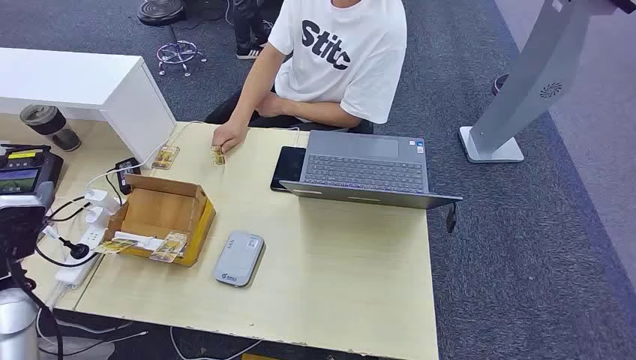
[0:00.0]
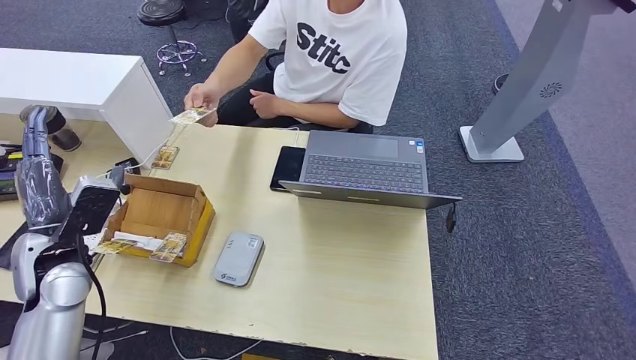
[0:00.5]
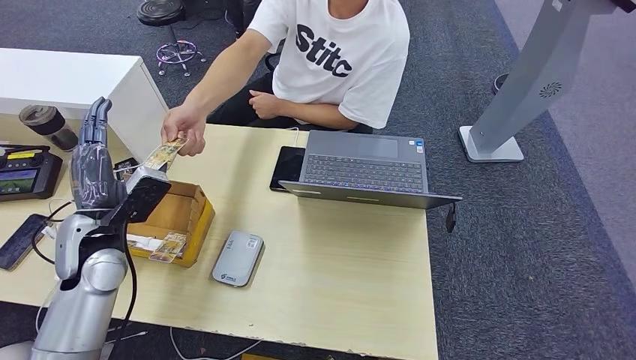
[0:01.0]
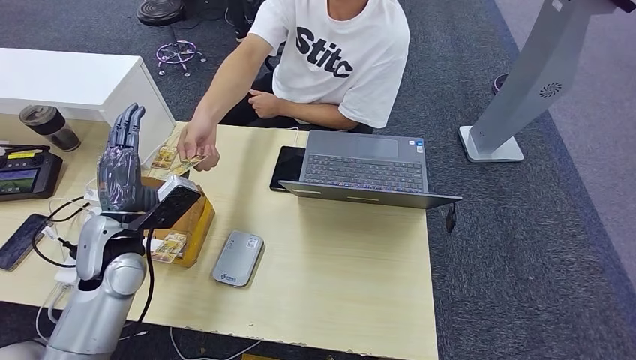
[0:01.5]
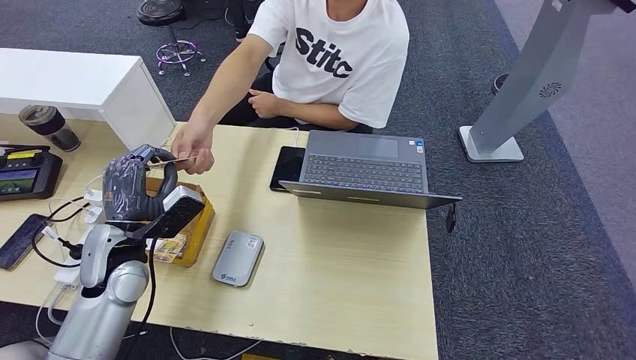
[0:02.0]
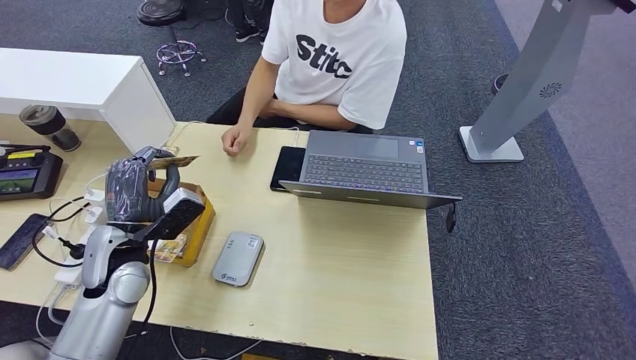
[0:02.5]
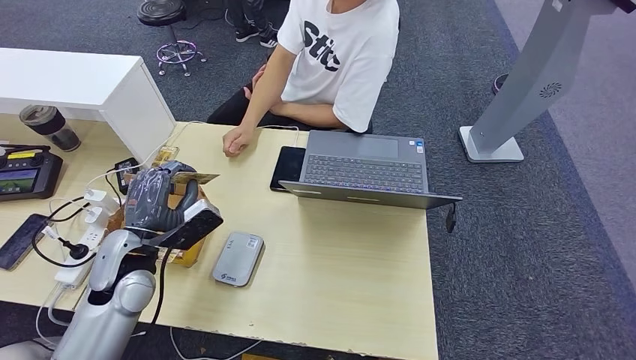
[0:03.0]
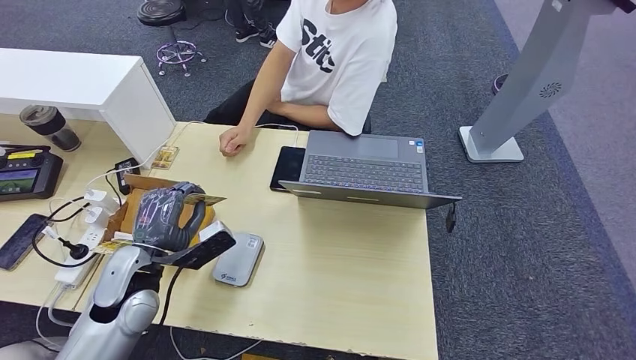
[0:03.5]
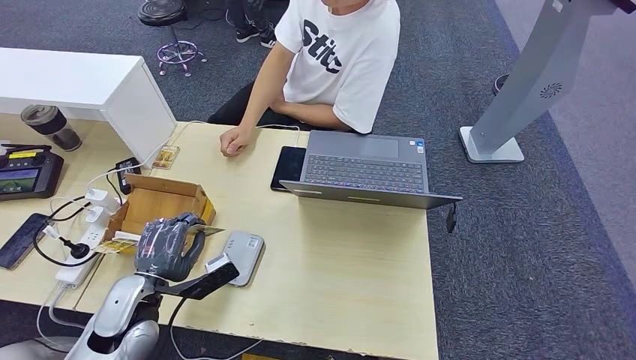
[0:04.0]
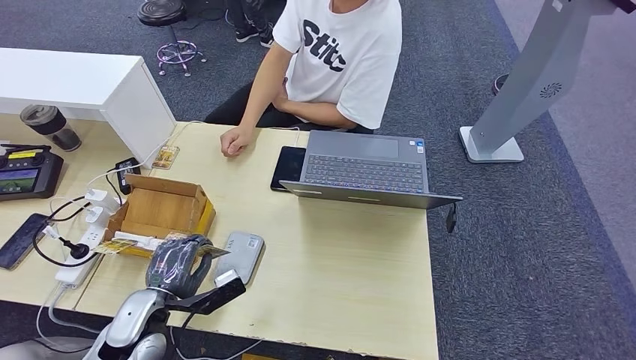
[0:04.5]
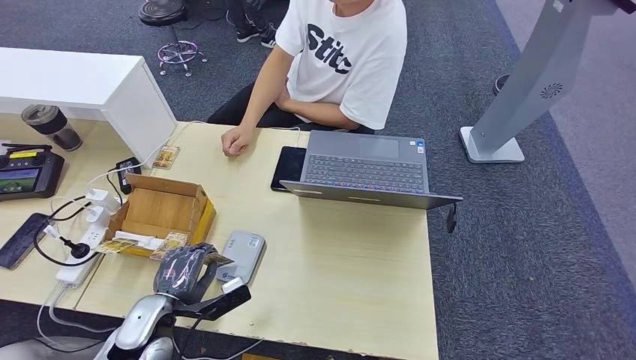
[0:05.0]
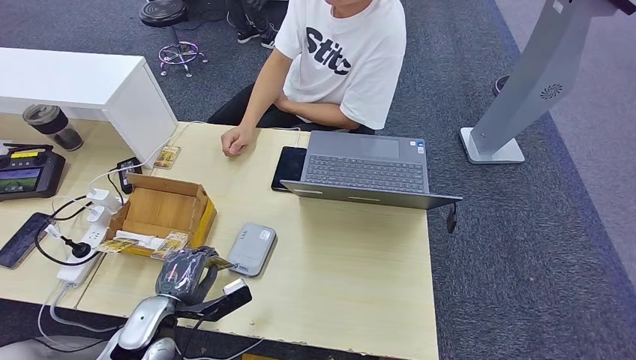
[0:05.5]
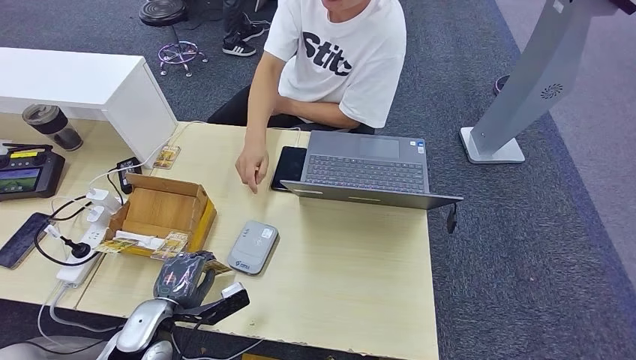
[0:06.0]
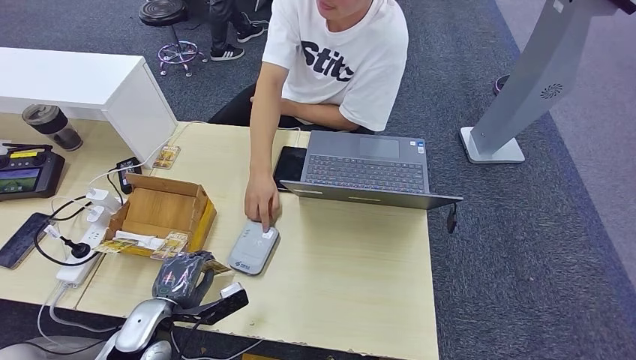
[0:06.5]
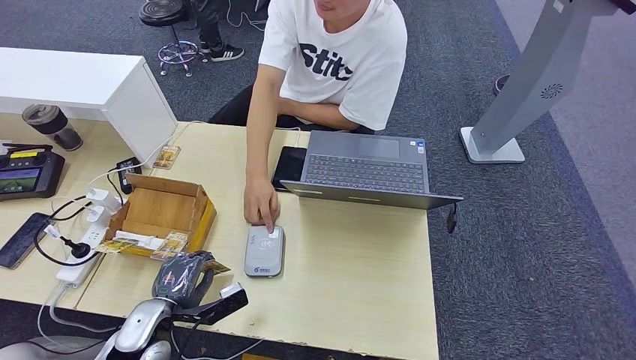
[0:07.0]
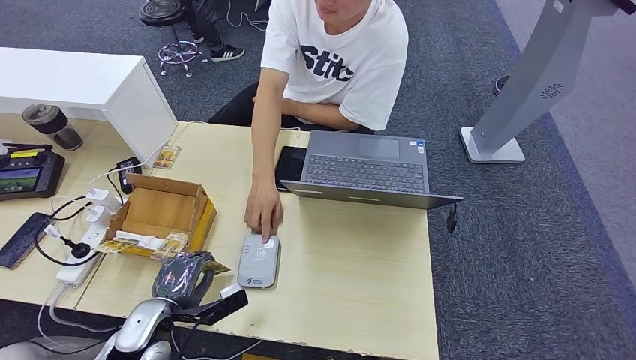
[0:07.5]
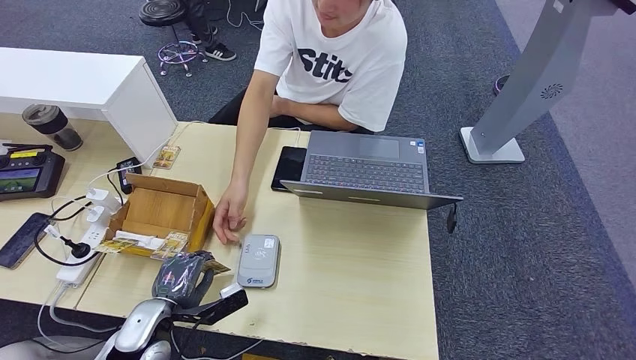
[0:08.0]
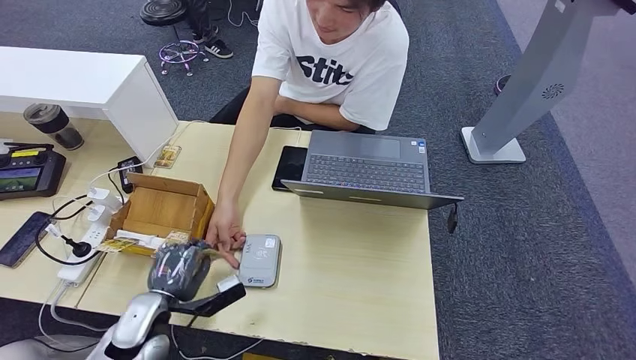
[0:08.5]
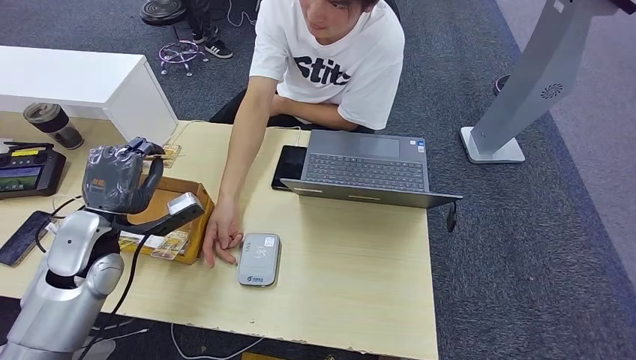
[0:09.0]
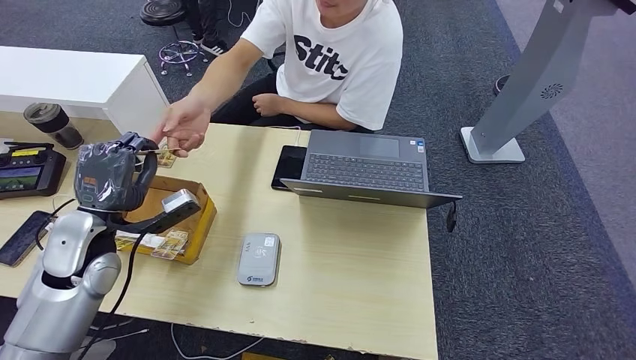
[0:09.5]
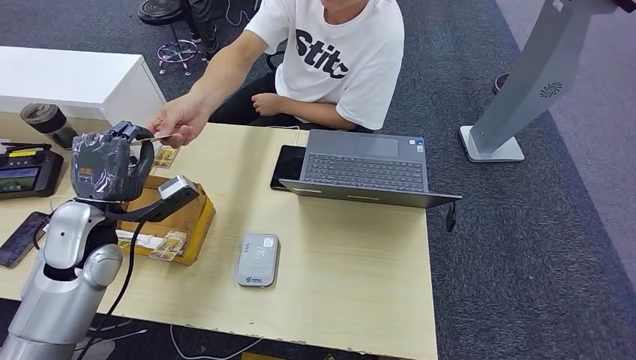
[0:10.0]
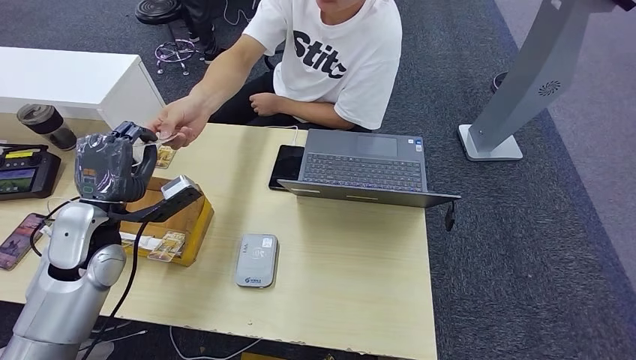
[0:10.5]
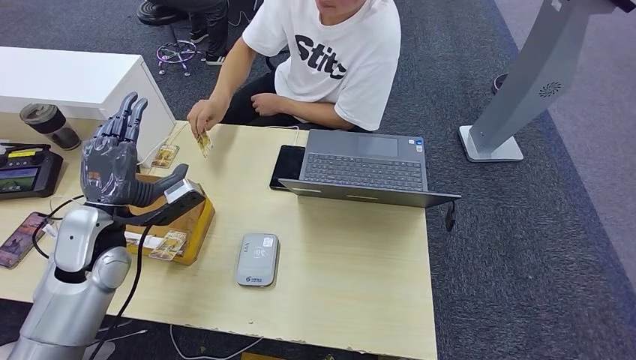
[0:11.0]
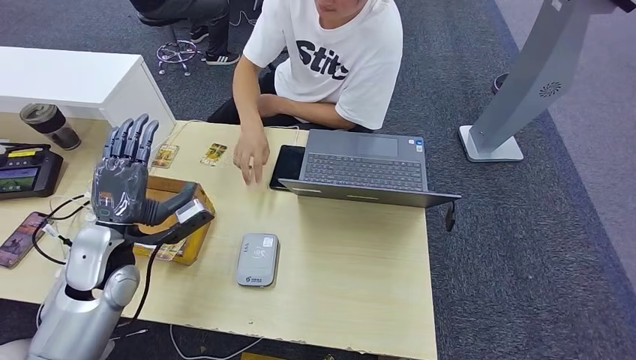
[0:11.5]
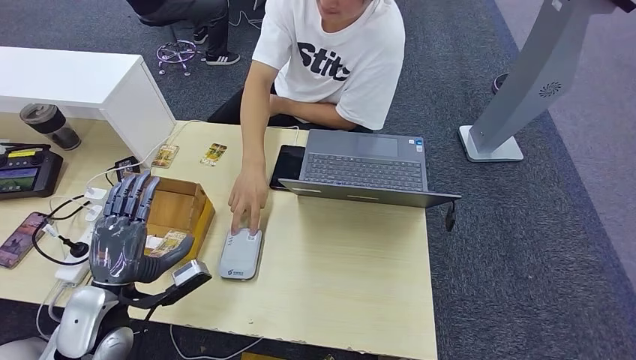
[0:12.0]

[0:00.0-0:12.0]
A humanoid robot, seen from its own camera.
Step, 0:00.0 to 0:02.5: Take the ID card from the person's hand.
Step, 0:03.5 to 0:05.0: Place the ID card on the card reader.
Step, 0:05.5 to 0:11.0: Hand the ID card to the person.
0:02.0 to 0:04.0: The left hand goes approximately 10 cm backward and downward.
0:04.0 to 0:06.0: The left hand goes some 5 cm downward.
0:06.0 to 0:08.0: Neither hand changes place.
0:10.0 to 0:12.0: The left hand is displaced backward and downward by approximately 15 cm.

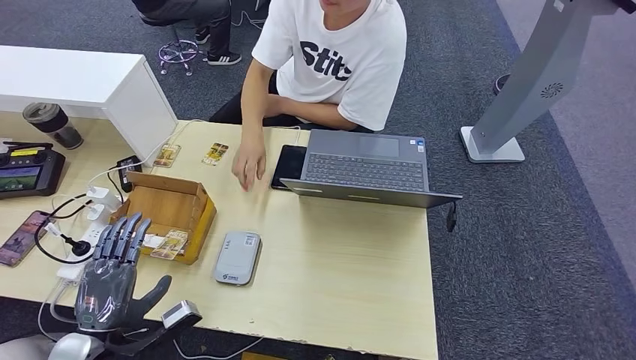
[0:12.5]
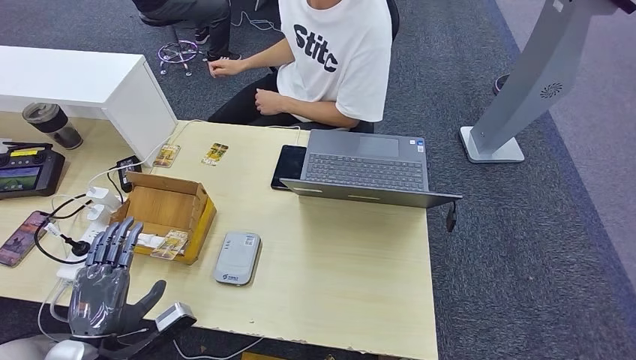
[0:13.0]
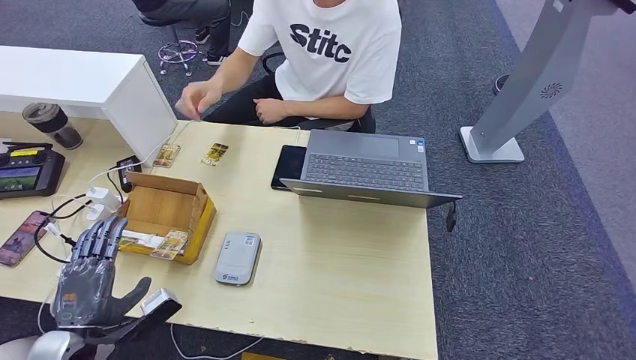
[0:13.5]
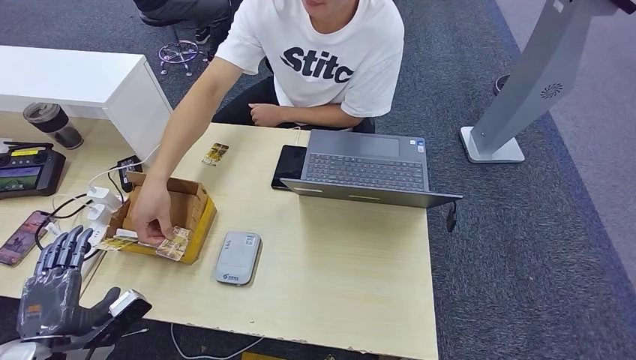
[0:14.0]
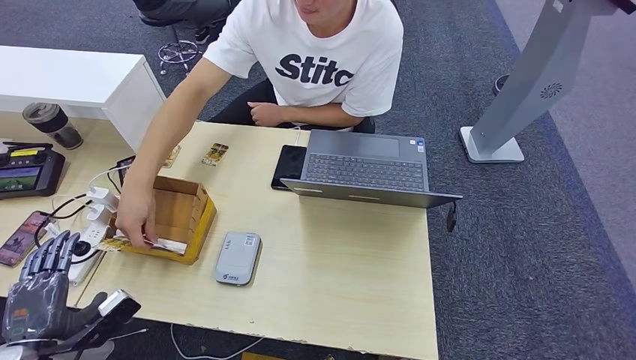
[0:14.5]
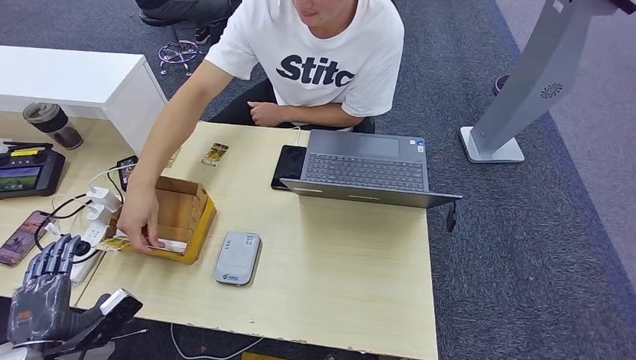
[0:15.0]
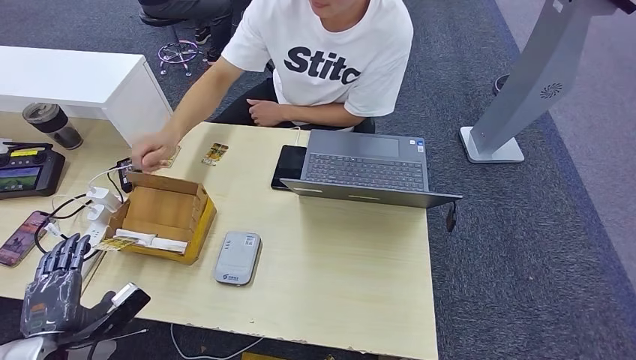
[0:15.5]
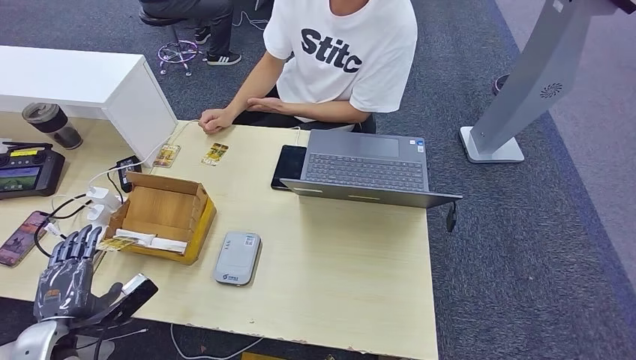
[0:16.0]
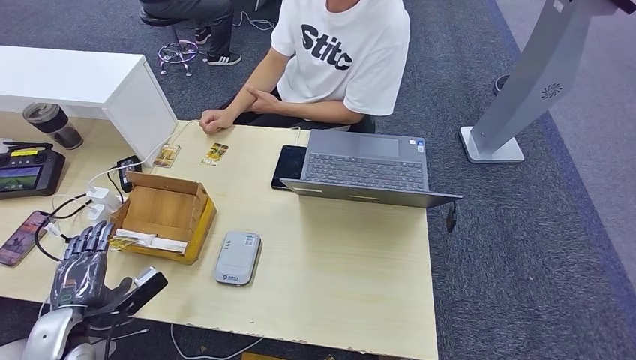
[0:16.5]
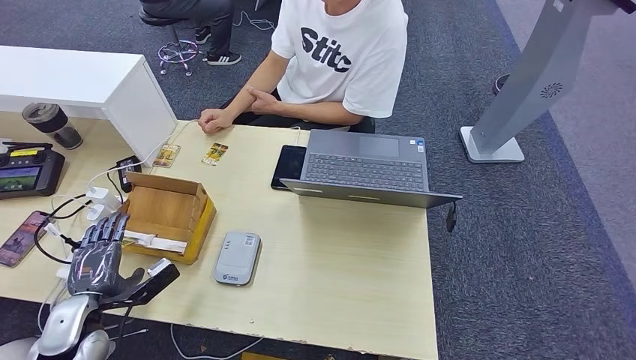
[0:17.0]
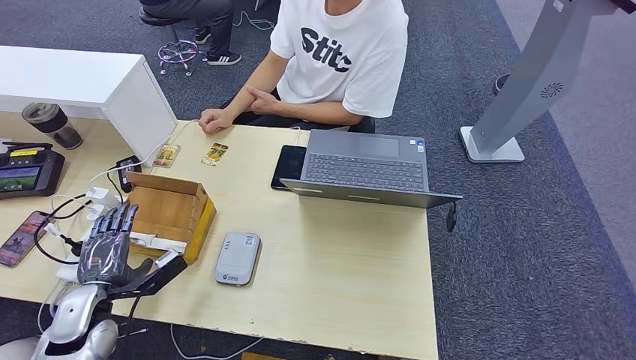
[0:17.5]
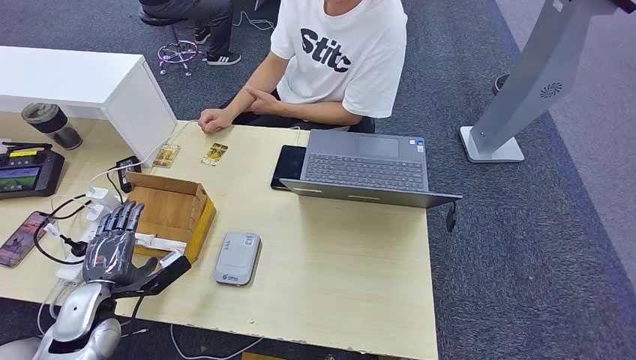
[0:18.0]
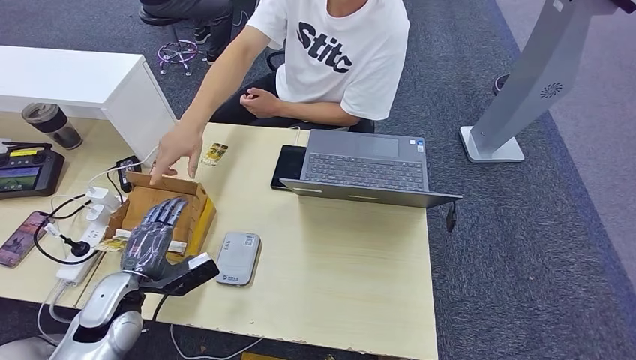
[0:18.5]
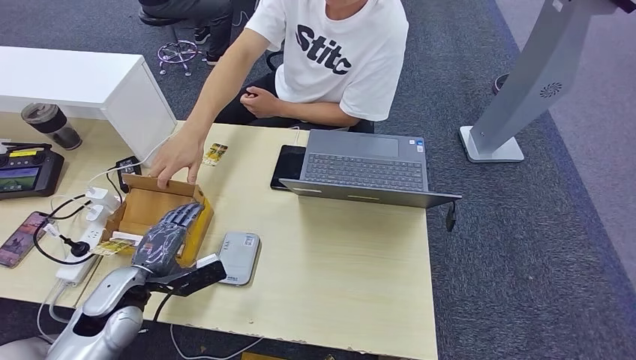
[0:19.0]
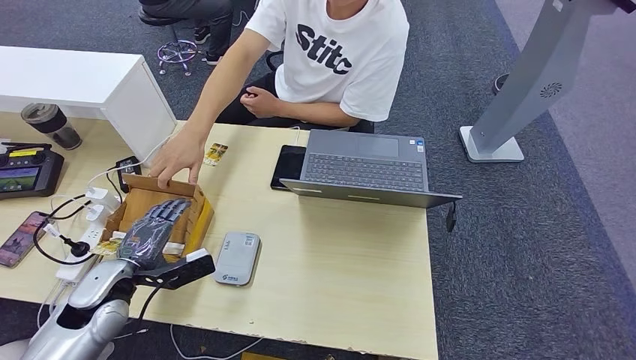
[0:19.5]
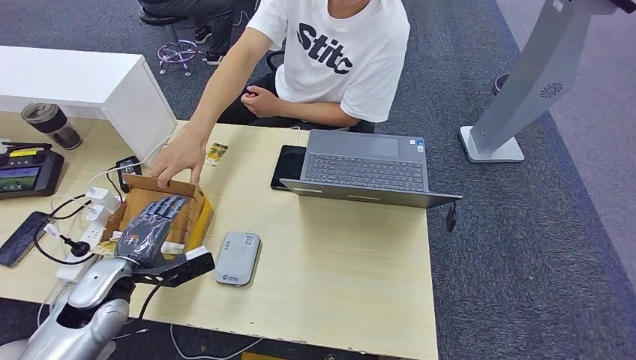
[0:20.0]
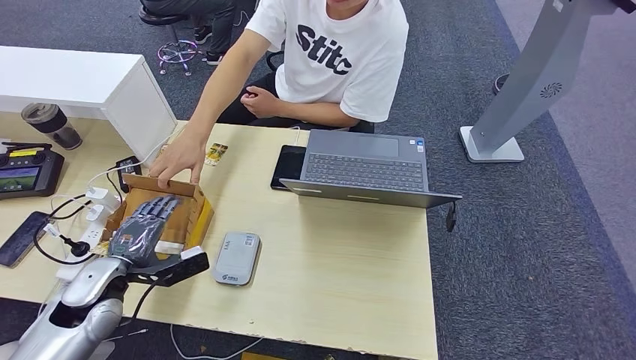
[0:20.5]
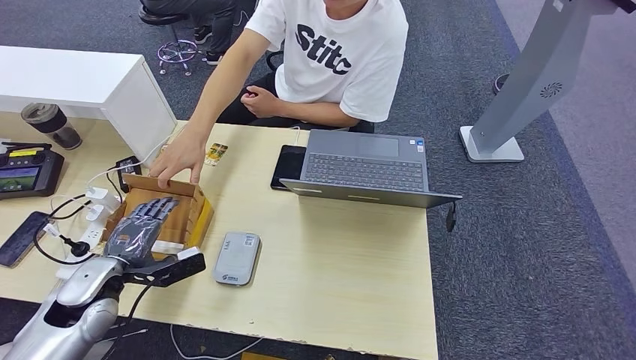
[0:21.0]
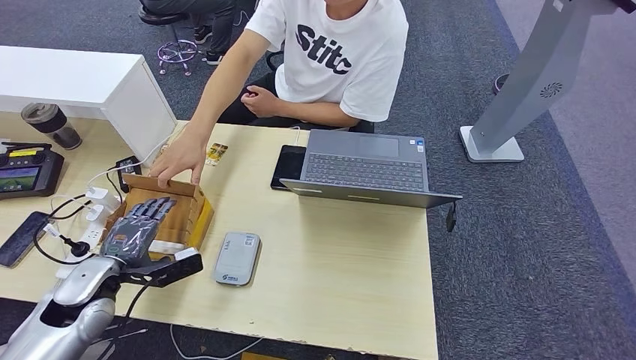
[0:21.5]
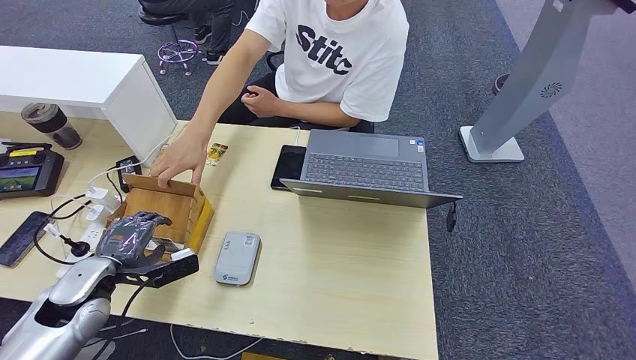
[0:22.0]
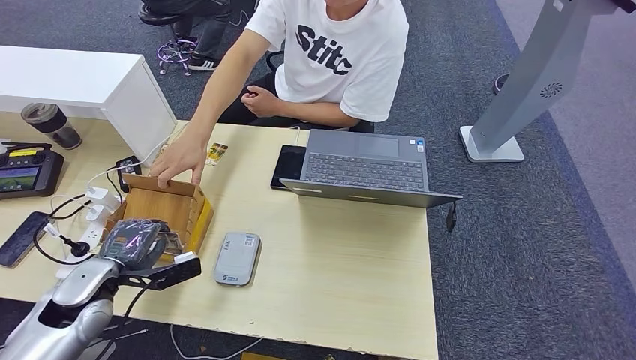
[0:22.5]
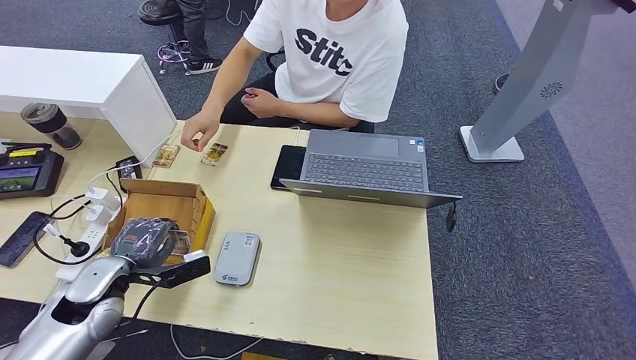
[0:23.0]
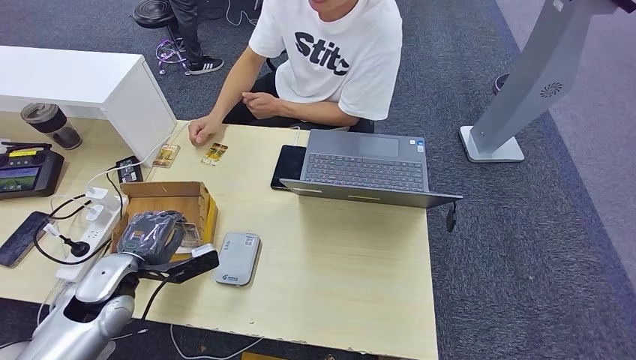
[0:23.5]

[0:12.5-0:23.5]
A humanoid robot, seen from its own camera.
Step, 0:12.5 to 0:23.0: Pick up the room key from the key card box.
0:12.5 to 0:14.5: The left hand goes approximately 10 cm to the left.
0:14.5 to 0:16.0: The left hand ends up about 5 cm from where it was.
0:16.0 to 0:18.0: The left hand moves forward, about 5 cm.
0:18.0 to 0:20.0: The left hand ends up roughly 5 cm from where it was.
0:20.0 to 0:23.5: There are only small adjustments of the hands.
